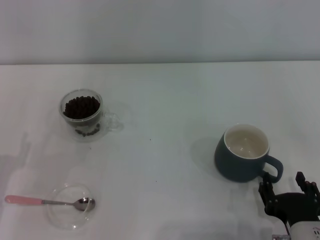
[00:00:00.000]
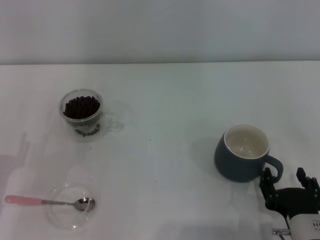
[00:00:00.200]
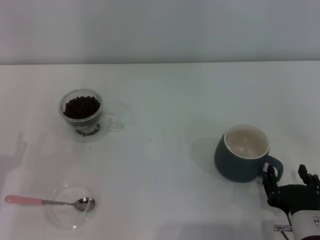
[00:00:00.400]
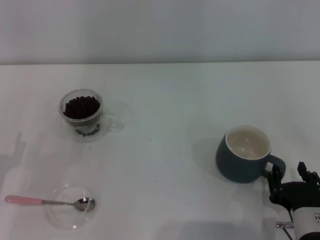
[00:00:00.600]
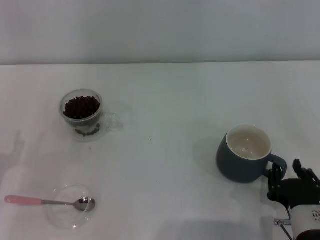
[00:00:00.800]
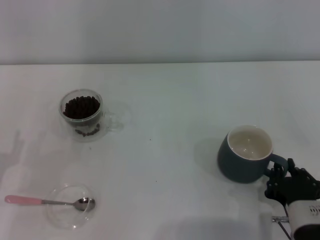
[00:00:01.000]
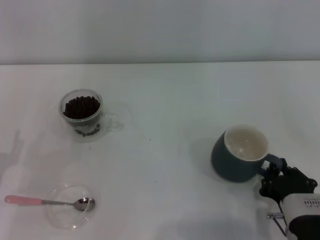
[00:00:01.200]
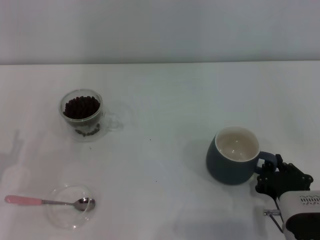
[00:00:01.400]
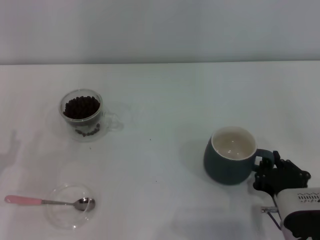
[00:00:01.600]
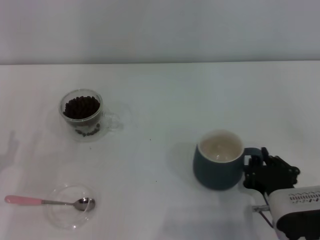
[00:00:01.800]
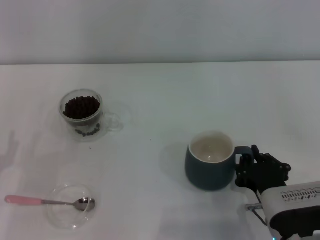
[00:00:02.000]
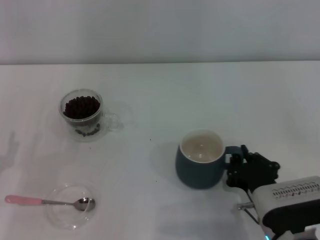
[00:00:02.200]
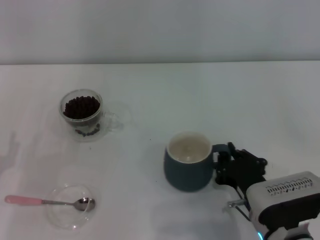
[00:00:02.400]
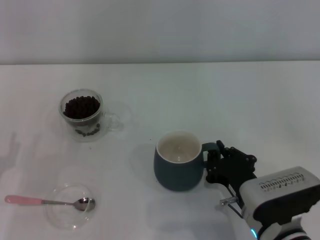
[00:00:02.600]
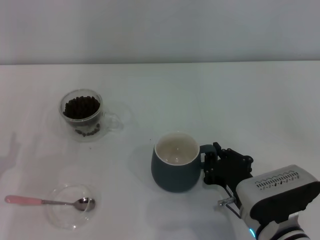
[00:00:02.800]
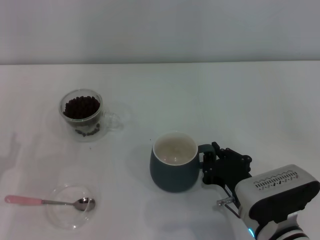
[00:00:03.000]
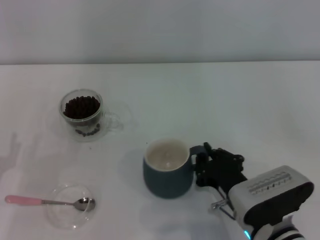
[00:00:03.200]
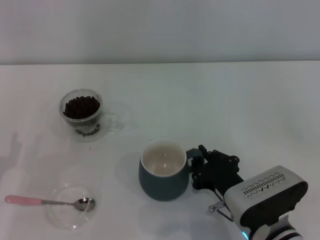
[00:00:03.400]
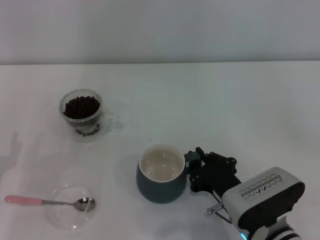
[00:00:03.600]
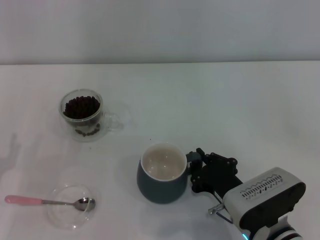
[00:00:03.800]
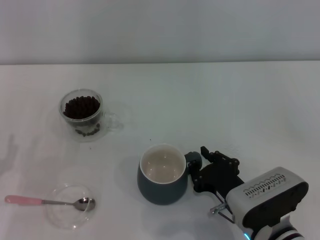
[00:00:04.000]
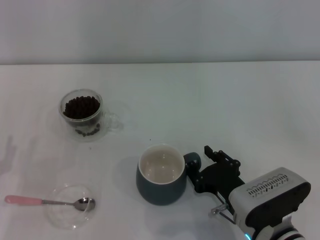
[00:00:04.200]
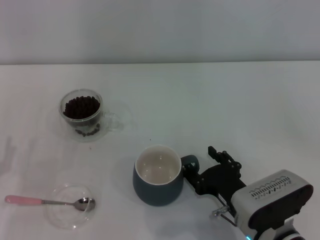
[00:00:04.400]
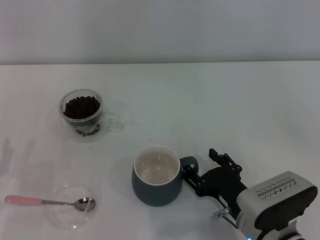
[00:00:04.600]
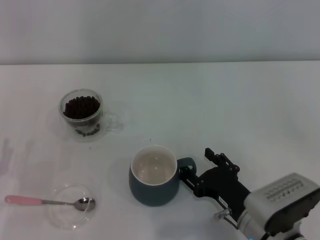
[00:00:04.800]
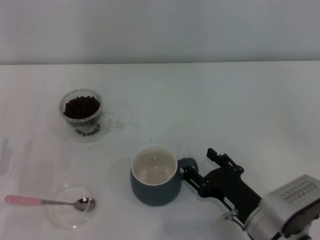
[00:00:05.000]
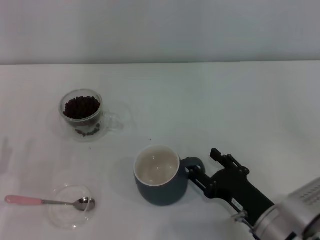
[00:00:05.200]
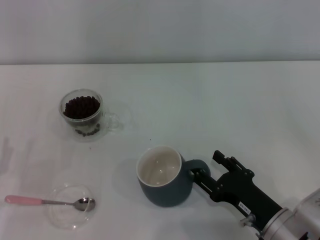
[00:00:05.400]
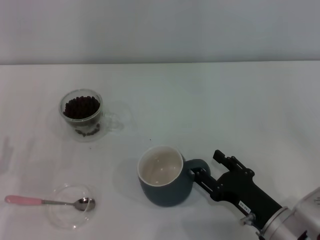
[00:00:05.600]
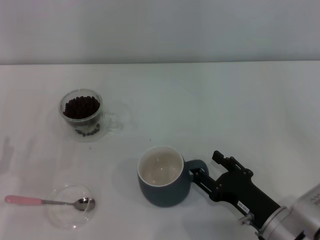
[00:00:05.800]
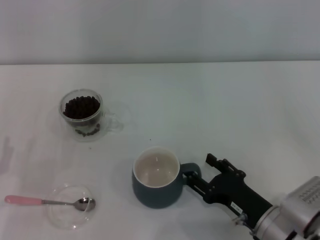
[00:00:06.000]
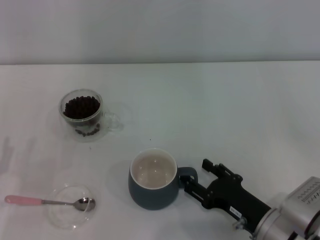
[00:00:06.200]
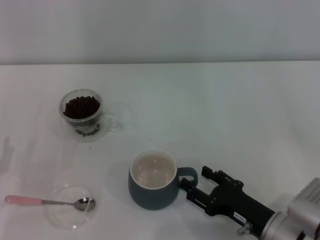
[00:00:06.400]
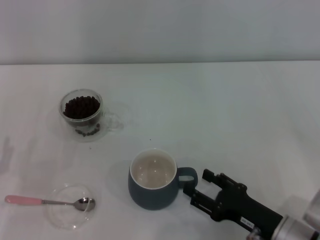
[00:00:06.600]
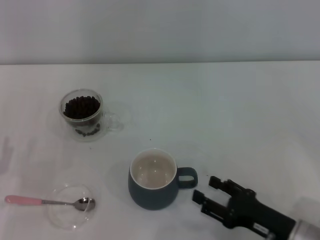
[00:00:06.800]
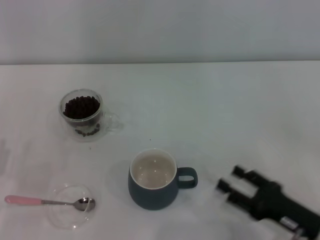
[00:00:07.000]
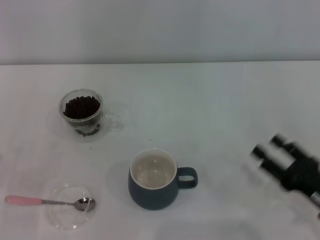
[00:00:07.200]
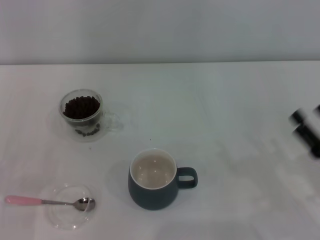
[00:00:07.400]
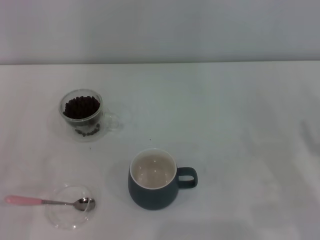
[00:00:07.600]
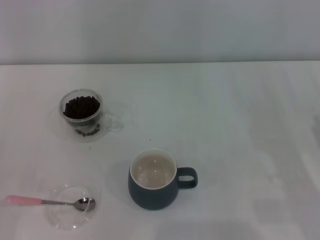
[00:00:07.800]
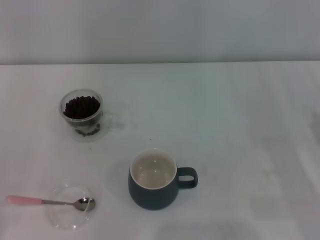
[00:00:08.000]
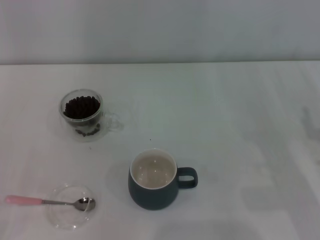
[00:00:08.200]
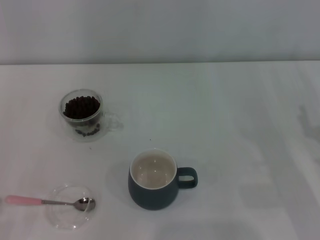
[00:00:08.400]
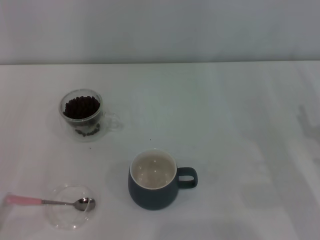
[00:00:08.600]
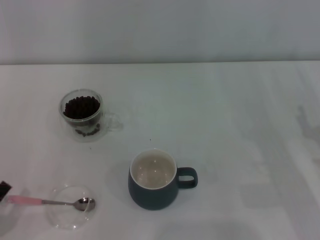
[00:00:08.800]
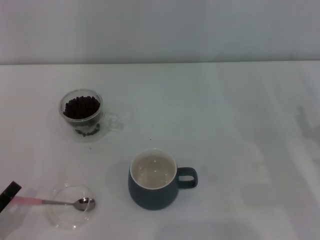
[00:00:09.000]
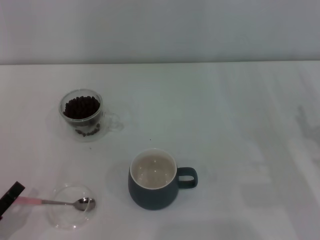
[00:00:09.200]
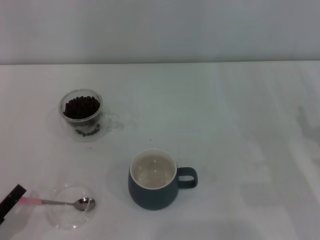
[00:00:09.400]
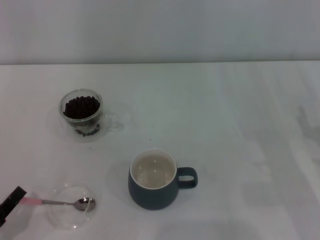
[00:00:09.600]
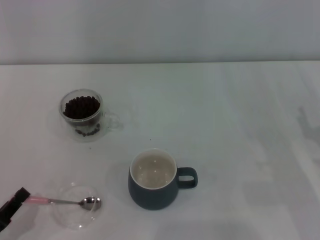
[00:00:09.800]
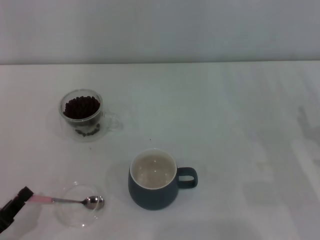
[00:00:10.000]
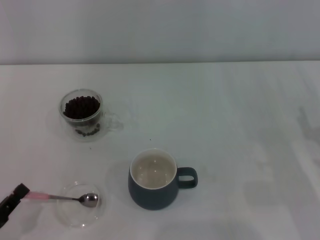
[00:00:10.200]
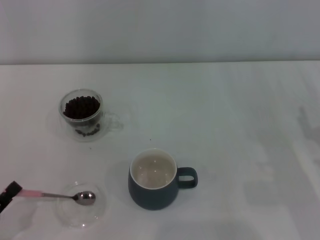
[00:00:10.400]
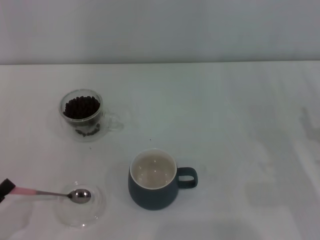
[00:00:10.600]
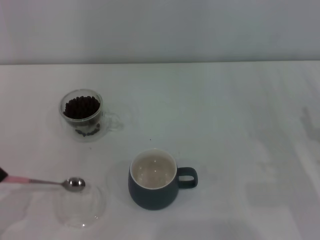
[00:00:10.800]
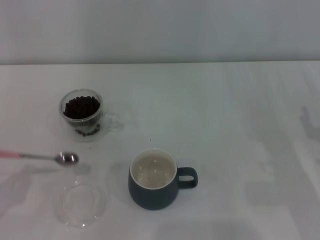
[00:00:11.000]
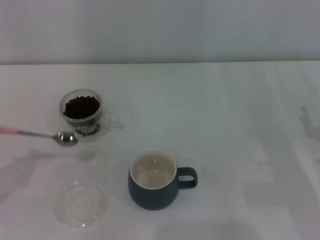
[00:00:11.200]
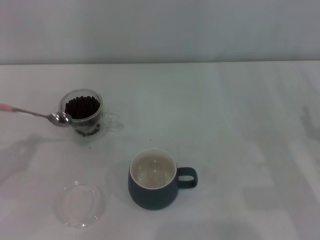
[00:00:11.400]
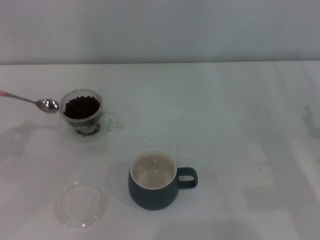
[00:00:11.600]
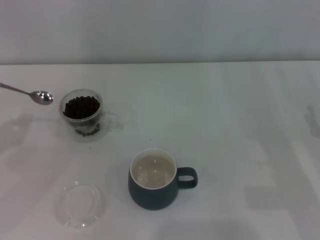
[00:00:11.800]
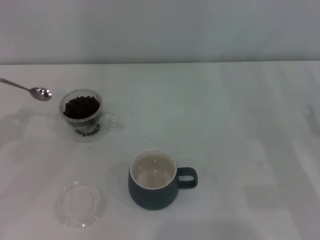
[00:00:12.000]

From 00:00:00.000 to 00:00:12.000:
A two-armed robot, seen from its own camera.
Task of the whole recording: Use a pink spoon to take out the coffee beans from the glass and pour them into the gray cup.
Step, from 00:00:00.000 to 00:00:06.800: Move the cup to the center of view with the left gripper.
Step, from 00:00:07.000 to 00:00:10.800: Pick up the spoon with the right gripper.
From 00:00:00.000 to 00:00:01.600: The right gripper closes up.
From 00:00:01.600 to 00:00:03.000: The grippers make only small movements.
From 00:00:03.000 to 00:00:04.400: The right gripper opens its fingers.
From 00:00:04.400 to 00:00:06.000: The right gripper opens.
From 00:00:06.000 to 00:00:07.600: The right gripper heads to the right, covering roughly 15 cm.
From 00:00:09.000 to 00:00:10.400: The left gripper closes up.
From 00:00:10.400 to 00:00:12.000: The left gripper shifts about 20 cm forward and upward.

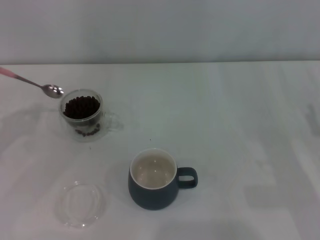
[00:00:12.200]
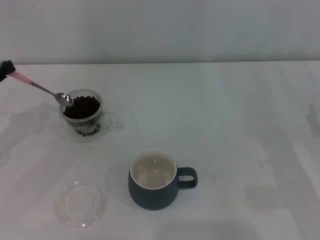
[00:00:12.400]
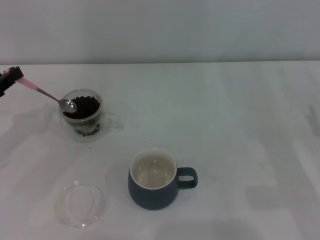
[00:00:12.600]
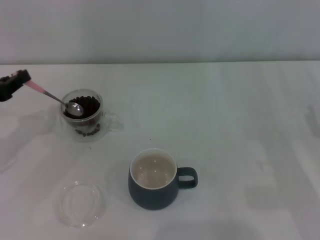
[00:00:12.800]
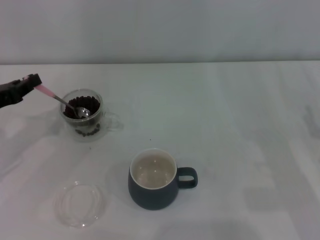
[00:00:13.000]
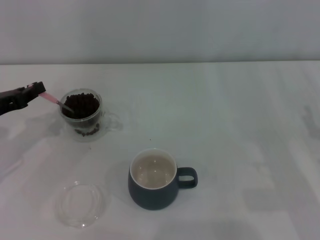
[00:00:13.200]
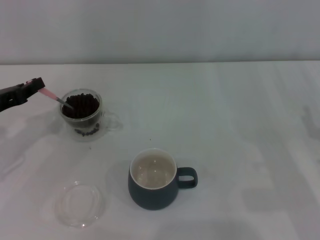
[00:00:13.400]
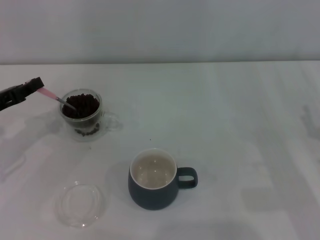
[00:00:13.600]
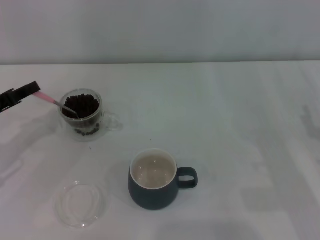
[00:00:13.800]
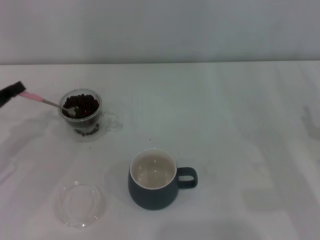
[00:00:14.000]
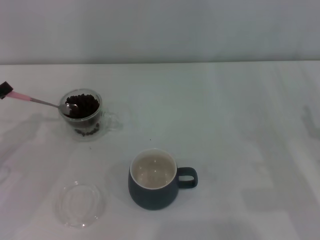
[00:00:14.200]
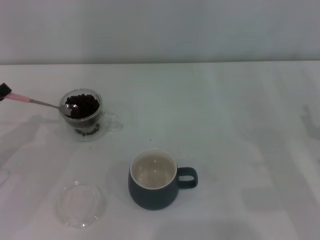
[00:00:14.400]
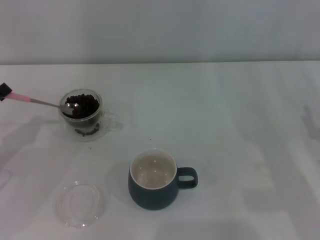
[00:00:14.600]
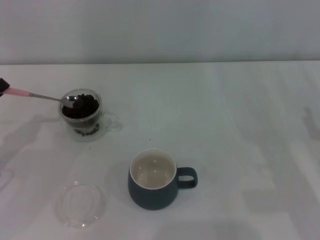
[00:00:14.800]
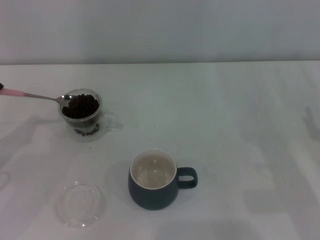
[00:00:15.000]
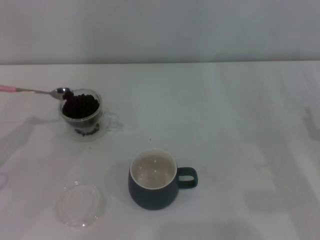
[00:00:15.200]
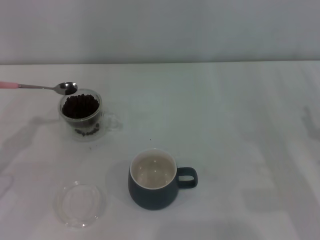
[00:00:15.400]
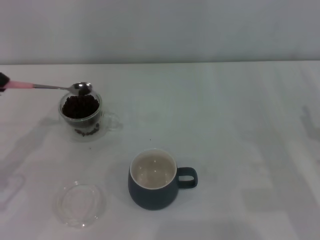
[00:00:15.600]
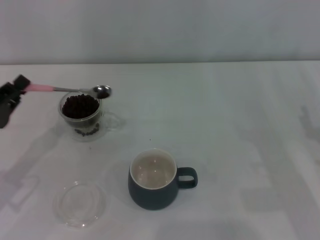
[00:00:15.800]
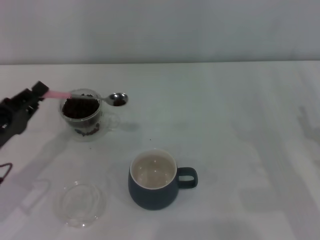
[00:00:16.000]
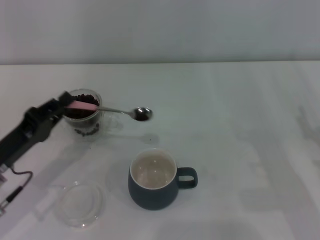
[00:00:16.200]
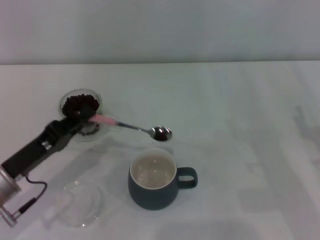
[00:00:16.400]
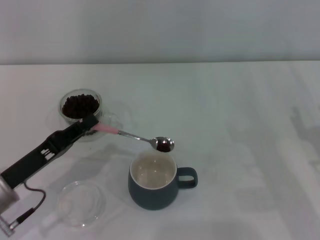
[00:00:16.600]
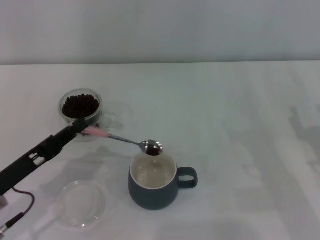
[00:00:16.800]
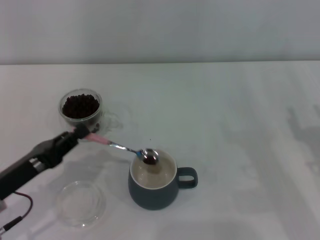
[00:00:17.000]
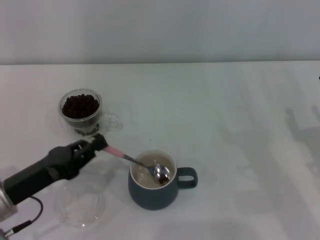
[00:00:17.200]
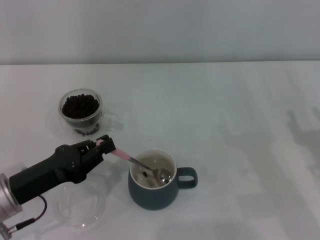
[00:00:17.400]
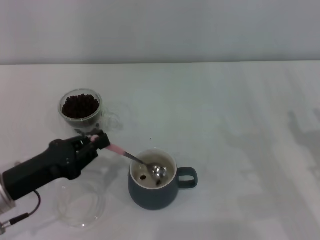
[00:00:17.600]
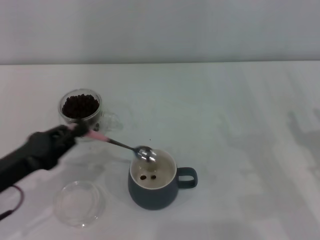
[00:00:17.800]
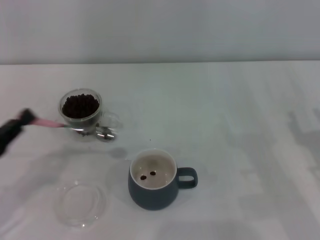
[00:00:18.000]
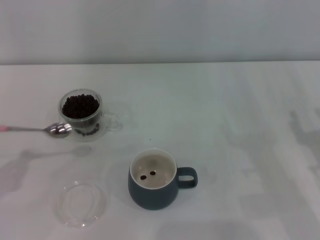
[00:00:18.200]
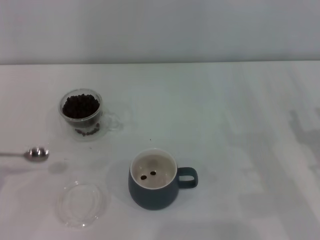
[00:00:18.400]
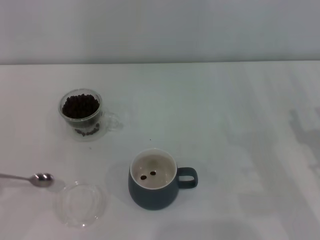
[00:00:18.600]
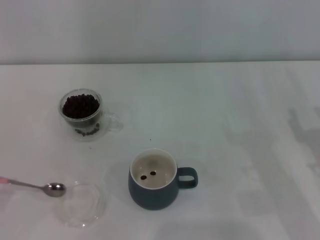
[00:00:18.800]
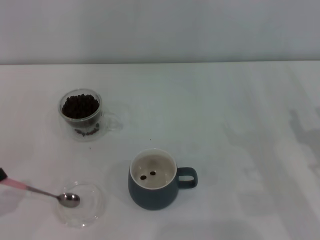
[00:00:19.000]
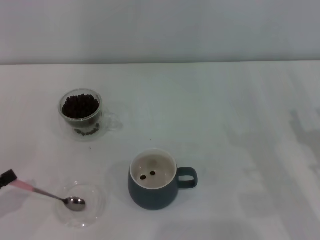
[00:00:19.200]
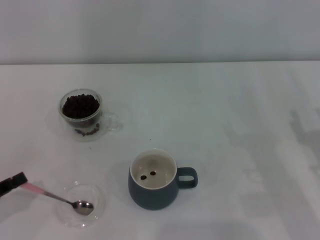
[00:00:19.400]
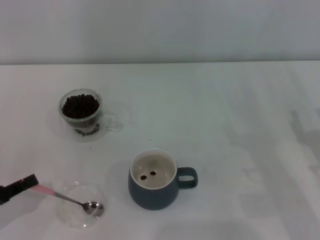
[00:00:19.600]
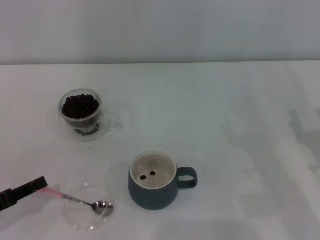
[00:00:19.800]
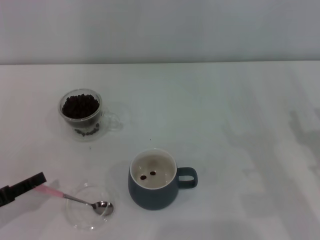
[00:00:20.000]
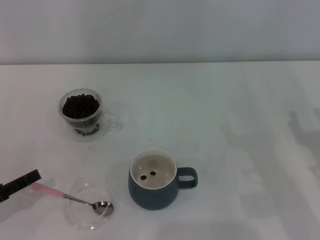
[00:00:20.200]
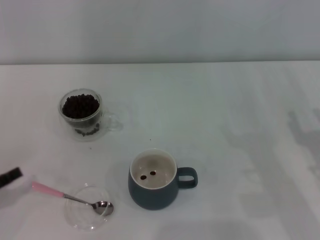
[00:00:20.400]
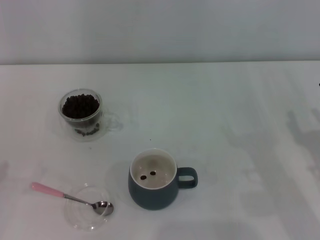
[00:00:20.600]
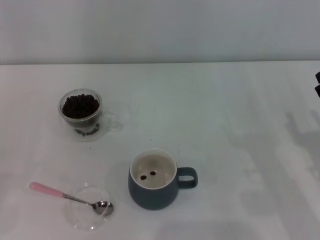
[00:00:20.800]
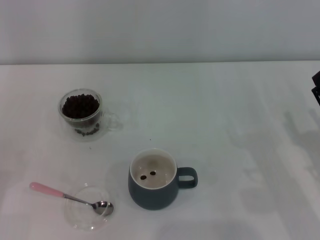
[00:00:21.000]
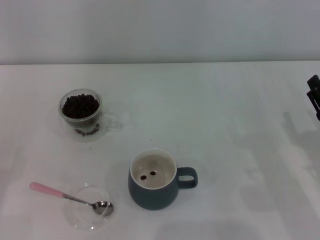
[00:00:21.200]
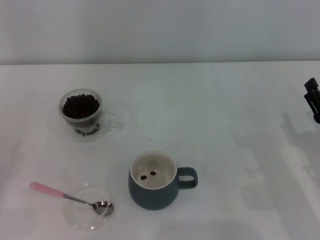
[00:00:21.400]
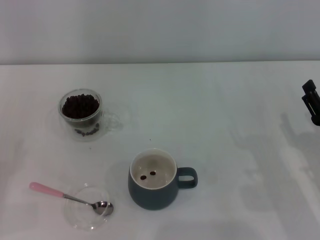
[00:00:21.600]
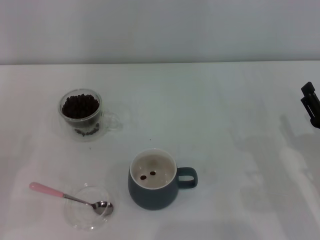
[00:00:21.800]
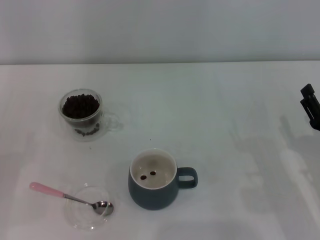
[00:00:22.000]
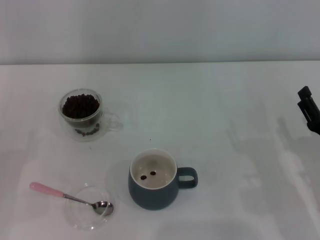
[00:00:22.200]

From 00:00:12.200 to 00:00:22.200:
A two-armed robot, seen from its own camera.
Task of the whole recording: Use a pink spoon to take out the coffee beans from the glass and pour them into the gray cup.
From 00:00:12.200 to 00:00:13.600: The left gripper changes place by approximately 5 cm.
From 00:00:13.600 to 00:00:15.000: The left gripper moves backward, approximately 5 cm.
From 00:00:15.000 to 00:00:16.400: The left gripper is displaced to the right by approximately 10 cm.
From 00:00:16.400 to 00:00:18.000: The left gripper is displaced to the left by approximately 5 cm.
From 00:00:19.400 to 00:00:20.800: The left gripper opens.
